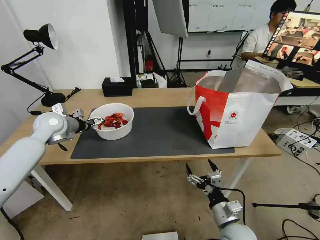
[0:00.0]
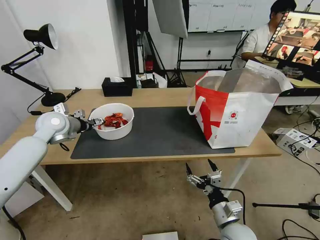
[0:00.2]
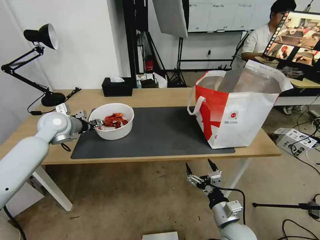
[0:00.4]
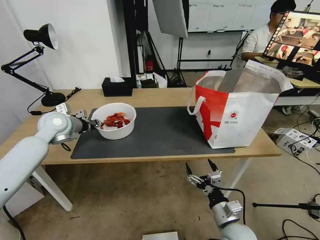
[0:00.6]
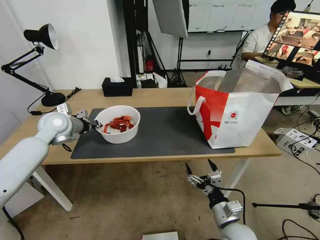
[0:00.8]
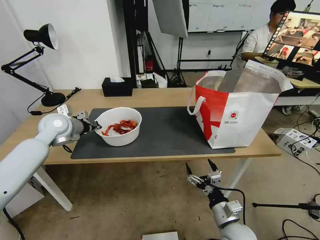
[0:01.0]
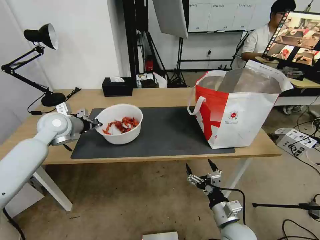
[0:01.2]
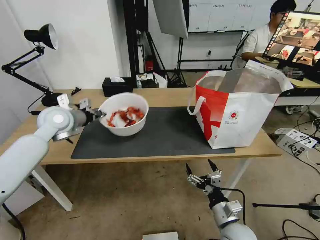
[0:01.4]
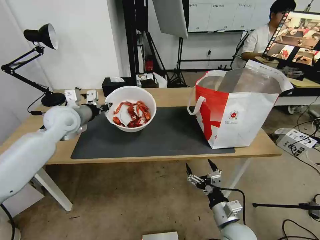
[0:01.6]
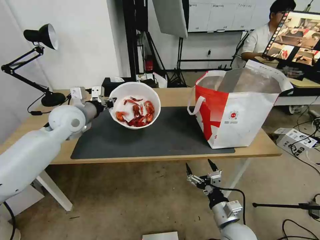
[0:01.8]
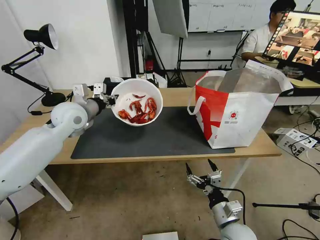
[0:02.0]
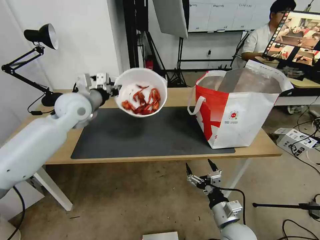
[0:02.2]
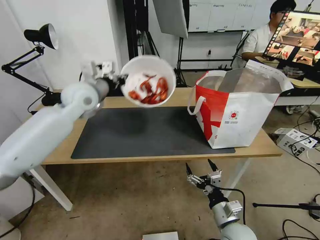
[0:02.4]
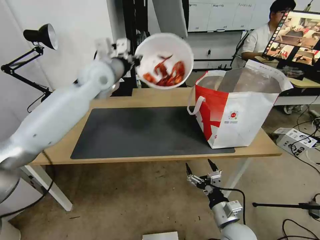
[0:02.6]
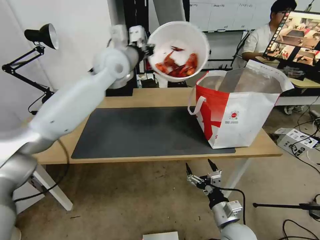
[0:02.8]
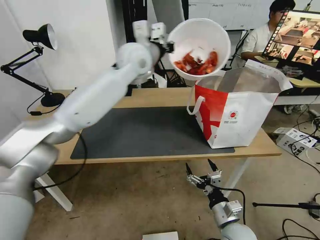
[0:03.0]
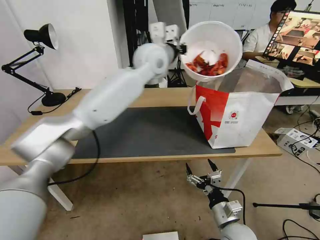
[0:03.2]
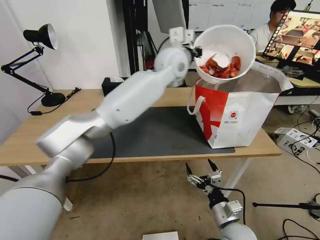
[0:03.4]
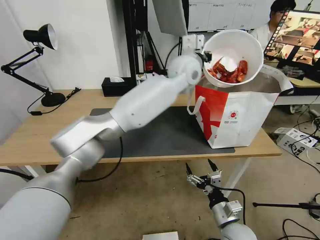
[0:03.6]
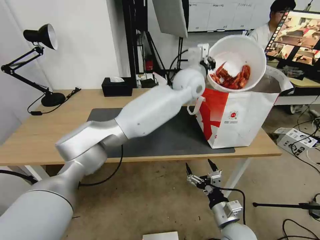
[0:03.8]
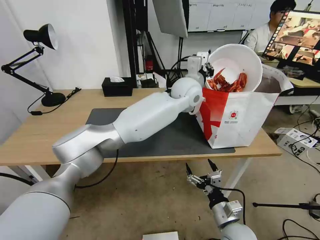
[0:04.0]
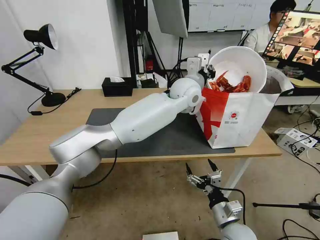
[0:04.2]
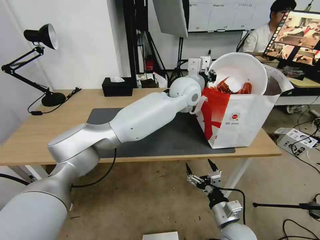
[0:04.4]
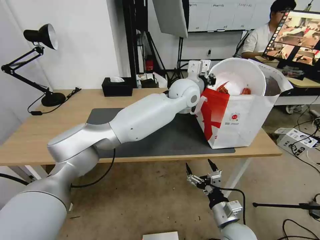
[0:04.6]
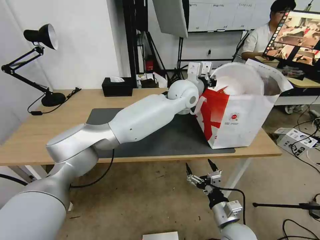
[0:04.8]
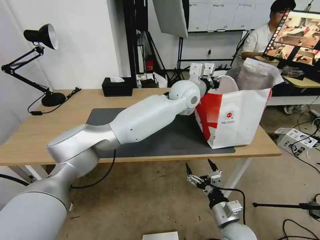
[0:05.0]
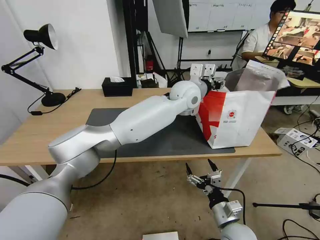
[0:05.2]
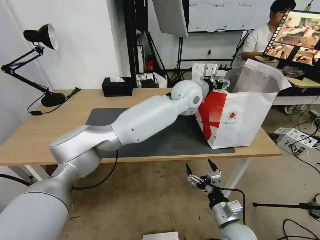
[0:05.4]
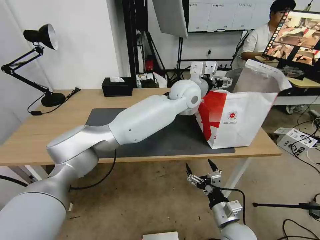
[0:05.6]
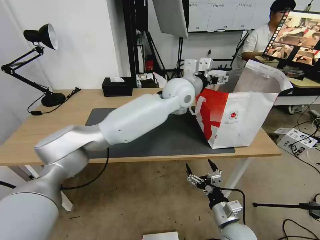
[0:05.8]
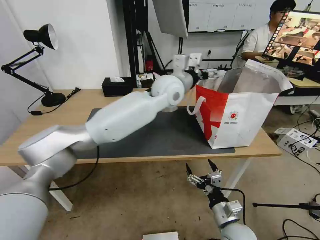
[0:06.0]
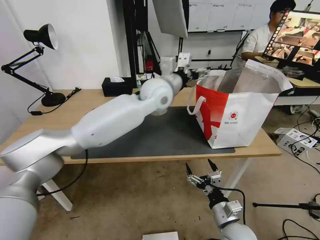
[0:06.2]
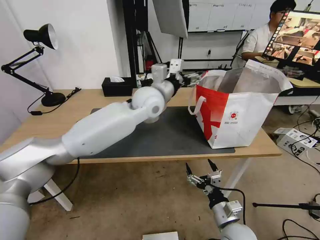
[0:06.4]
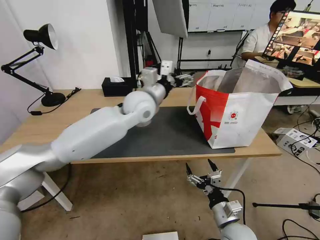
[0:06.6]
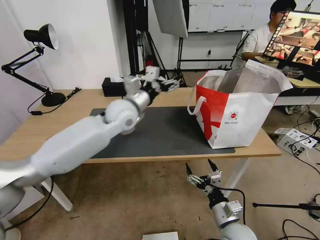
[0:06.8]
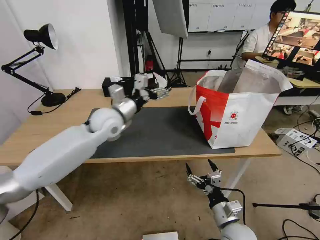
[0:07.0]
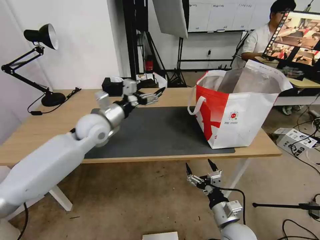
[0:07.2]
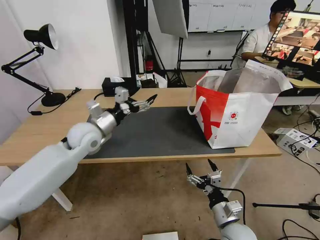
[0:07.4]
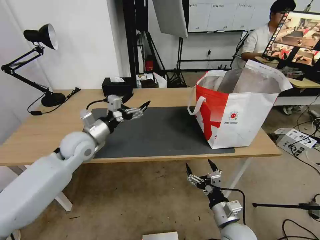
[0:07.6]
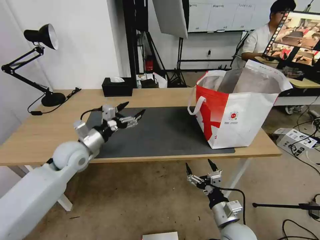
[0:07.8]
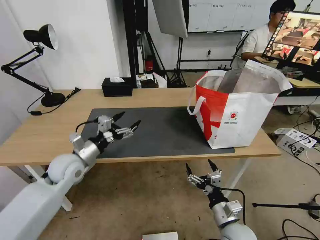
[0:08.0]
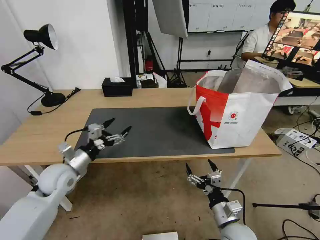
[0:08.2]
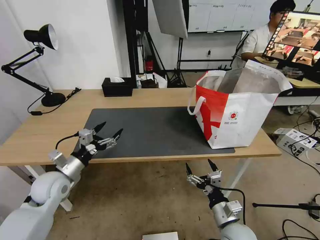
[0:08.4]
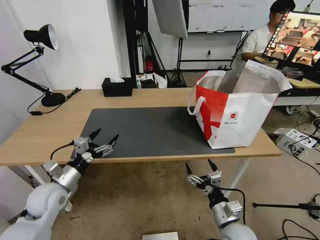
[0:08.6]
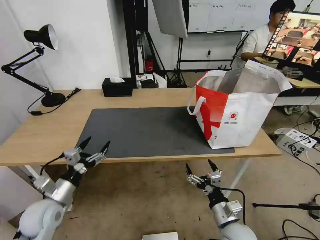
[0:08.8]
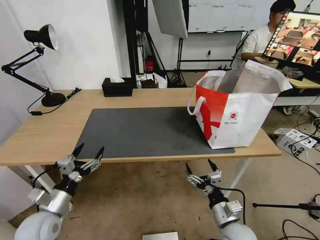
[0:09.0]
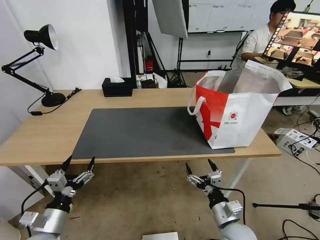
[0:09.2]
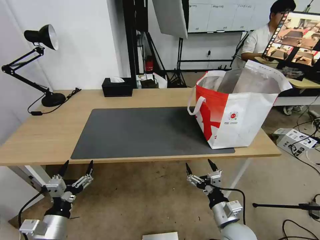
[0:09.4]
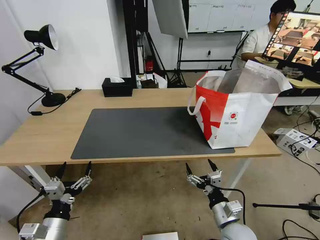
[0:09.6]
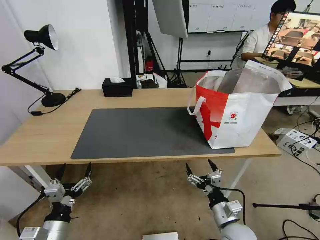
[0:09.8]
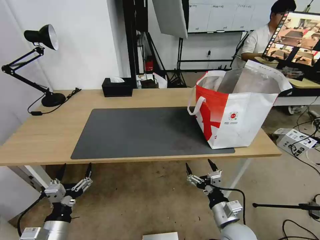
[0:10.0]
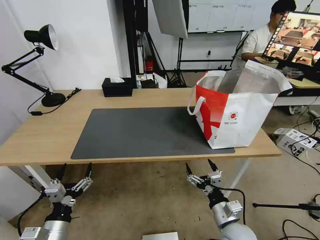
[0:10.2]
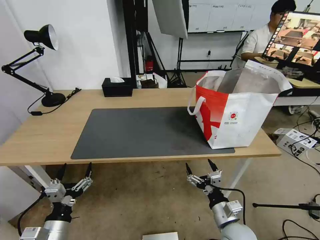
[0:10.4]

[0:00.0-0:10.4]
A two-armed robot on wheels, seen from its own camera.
Task of the whole recording: Pick up the trash from the table and place it into the takeout bag.
0:00.0 to 0:01.4: The left gripper changes place by some 5 cm, and closes.
0:01.4 to 0:03.0: The left gripper travels to the right and upward by about 25 cm.
0:03.0 to 0:04.4: The left gripper travels to the right and downward by some 20 cm.
0:04.4 to 0:06.0: The left gripper travels to the left by roughly 5 cm, and opens up.
0:06.0 to 0:07.4: The left gripper shifts some 30 cm to the left and downward.
0:07.4 to 0:09.0: The left gripper shifts approximately 30 cm backward, downward and to the left.
0:09.0 to 0:10.4: The left gripper shifts about 10 cm backward.

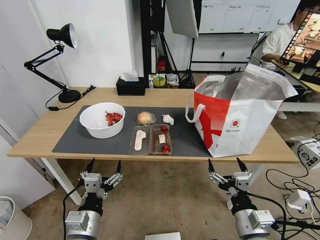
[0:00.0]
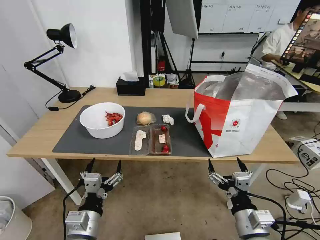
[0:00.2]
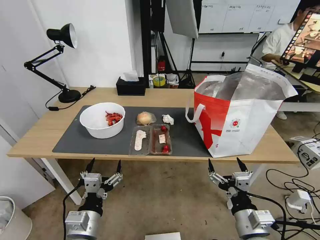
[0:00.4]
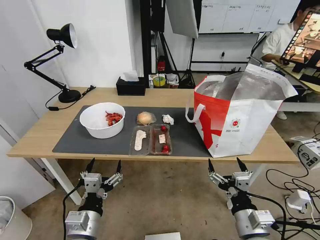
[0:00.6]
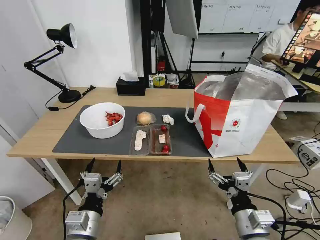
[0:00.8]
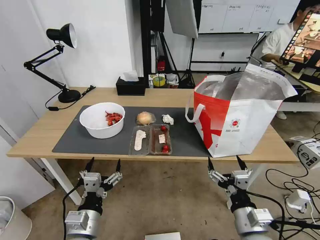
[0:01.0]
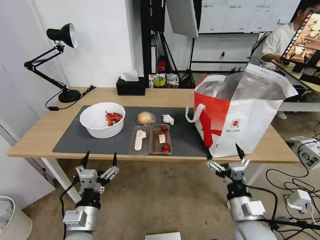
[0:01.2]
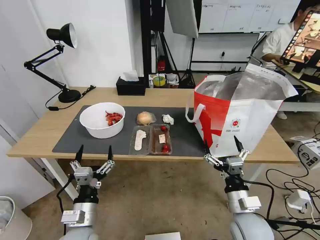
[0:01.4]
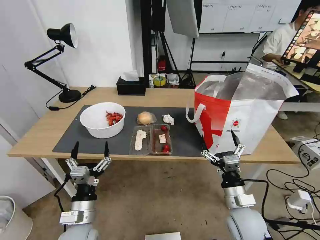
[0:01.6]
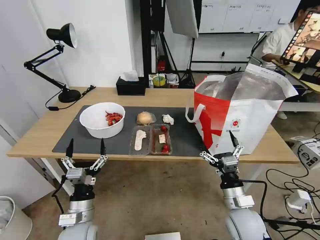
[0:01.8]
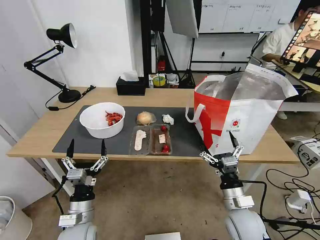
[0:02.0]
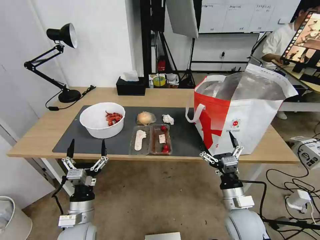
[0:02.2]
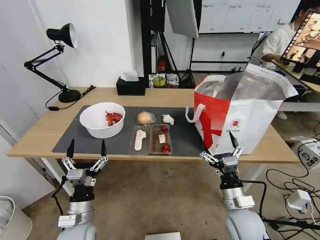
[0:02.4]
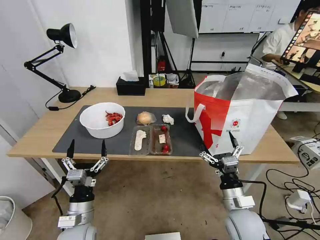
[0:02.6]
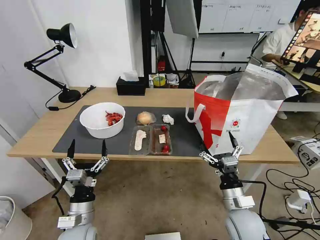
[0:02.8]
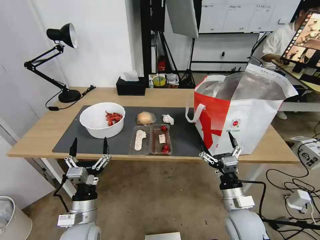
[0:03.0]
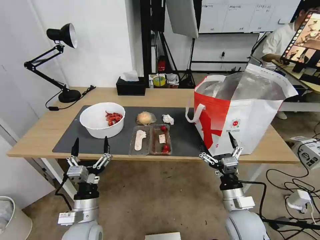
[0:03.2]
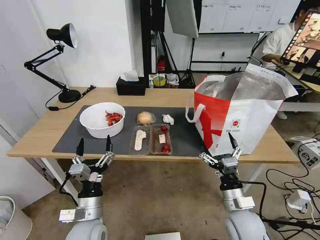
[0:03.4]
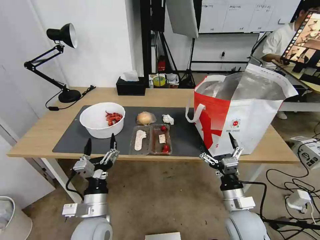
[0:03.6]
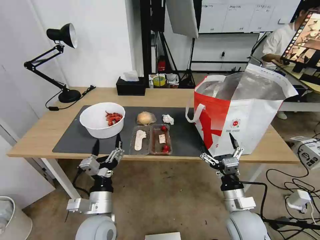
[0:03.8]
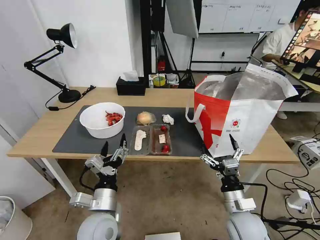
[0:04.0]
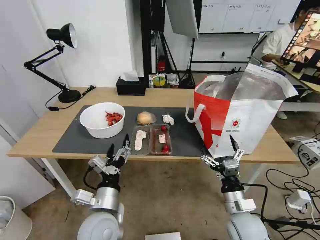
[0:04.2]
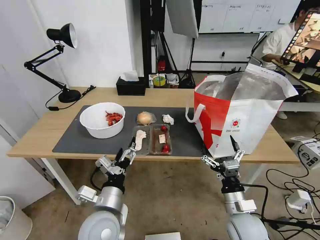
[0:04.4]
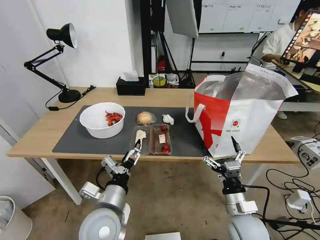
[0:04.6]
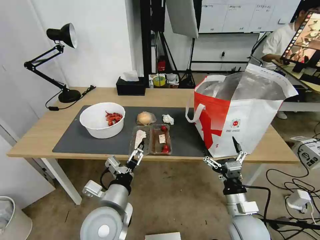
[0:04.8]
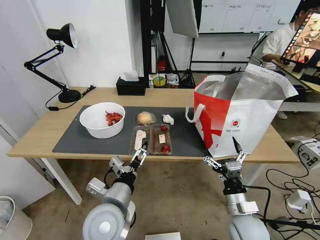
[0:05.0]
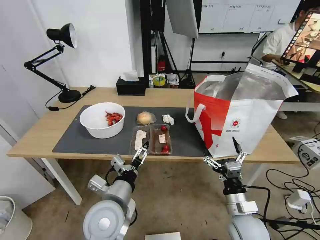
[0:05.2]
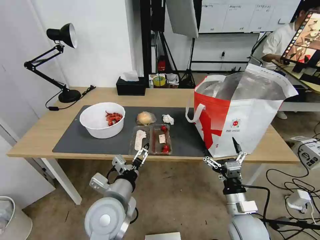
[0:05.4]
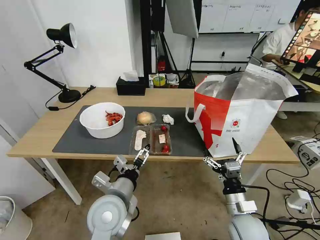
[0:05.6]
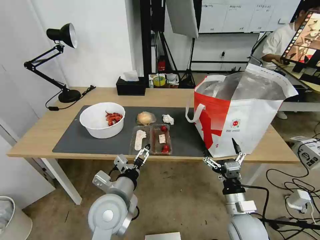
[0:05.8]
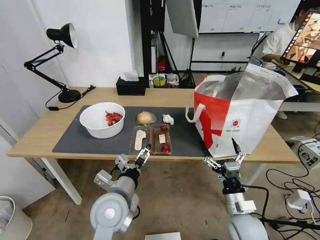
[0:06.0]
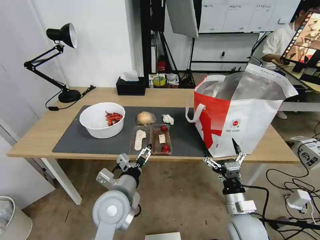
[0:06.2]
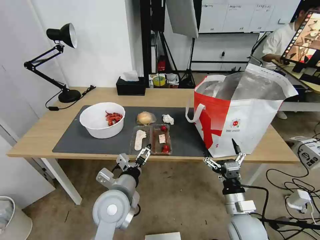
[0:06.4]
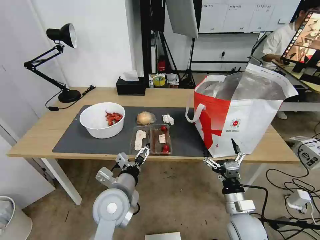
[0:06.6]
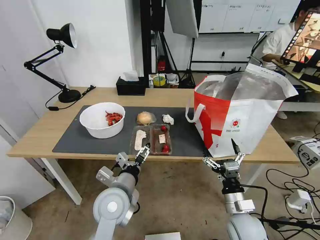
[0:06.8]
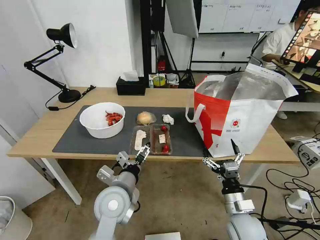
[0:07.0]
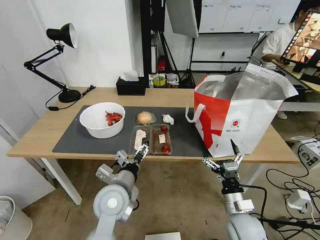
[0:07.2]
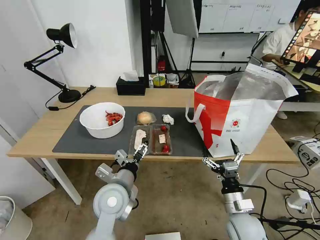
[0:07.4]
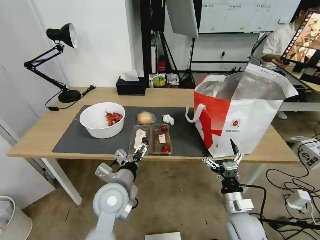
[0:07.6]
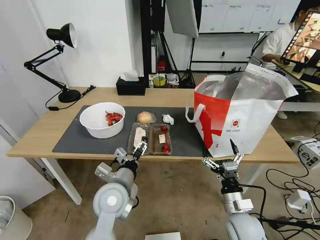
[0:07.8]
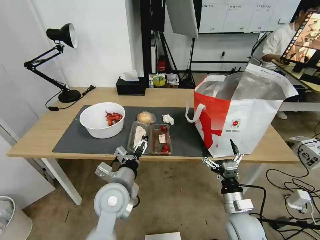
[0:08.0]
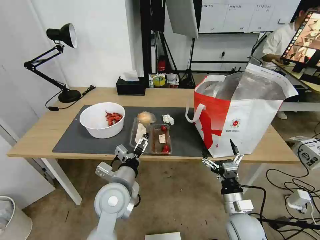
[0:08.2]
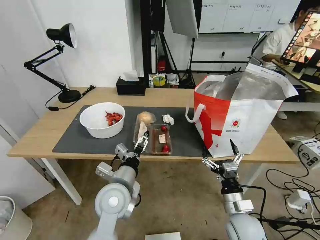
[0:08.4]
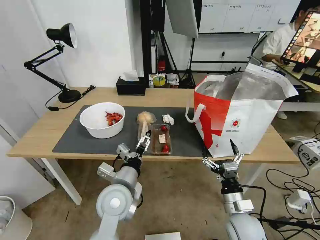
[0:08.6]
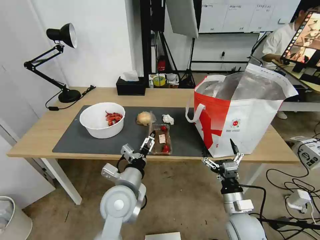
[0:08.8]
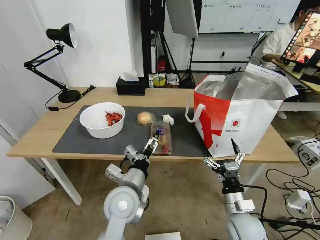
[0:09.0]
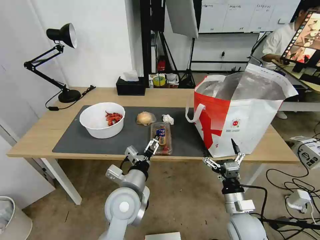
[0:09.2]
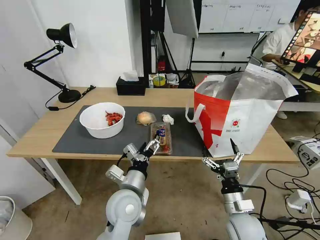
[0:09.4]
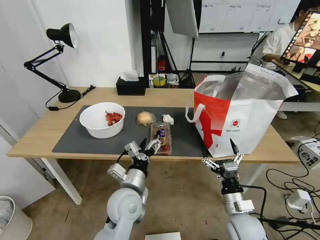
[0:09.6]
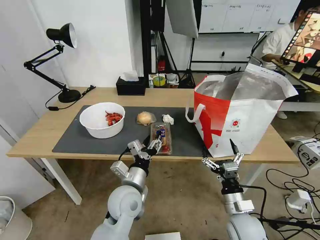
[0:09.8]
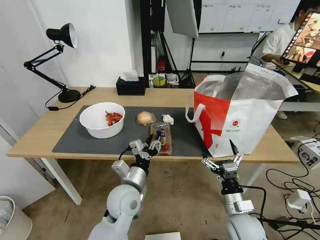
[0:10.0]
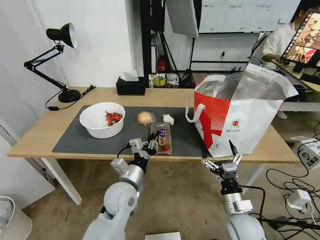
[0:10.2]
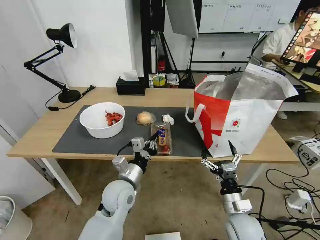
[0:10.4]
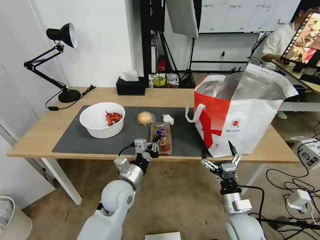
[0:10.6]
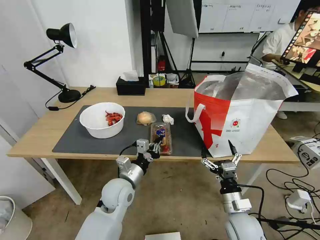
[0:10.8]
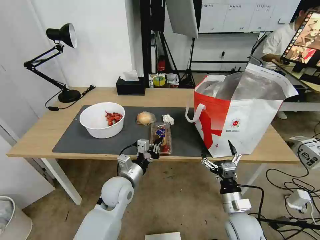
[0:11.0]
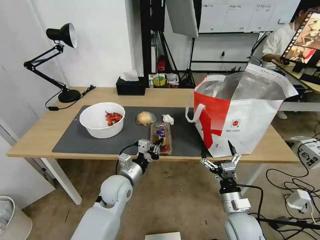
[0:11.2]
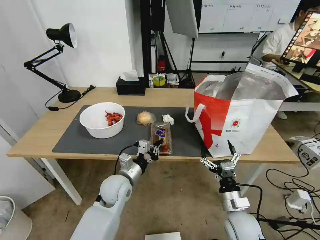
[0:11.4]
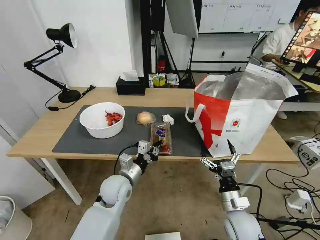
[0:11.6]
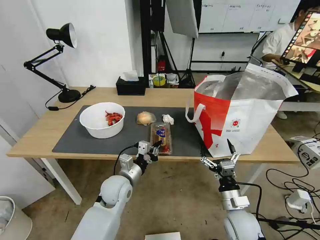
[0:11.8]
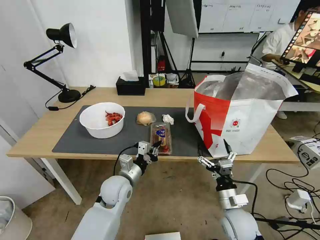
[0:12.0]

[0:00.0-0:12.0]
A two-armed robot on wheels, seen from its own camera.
Task of the whole recording: Pick up the trash from the table and place it into the takeout bag.
0:01.6 to 0:03.0: The grippers move only a little.
0:03.0 to 0:04.4: The left gripper heads to the right and upward, covering some 10 cm.
0:06.0 to 0:09.0: The grippers stay close to where they were, moving slightly.
0:09.0 to 0:10.4: The left gripper shifts by about 5 cm, and closes its fingers.
0:10.4 to 0:12.0: There are only small adjustments of the grippers.
